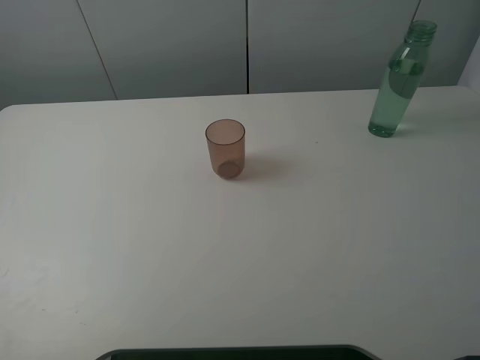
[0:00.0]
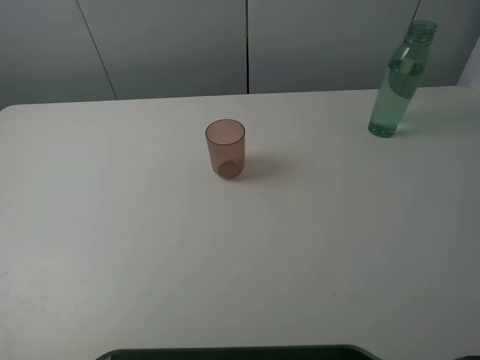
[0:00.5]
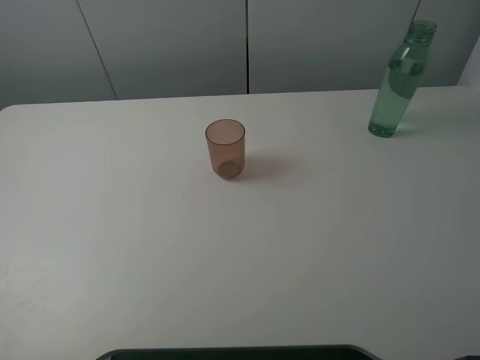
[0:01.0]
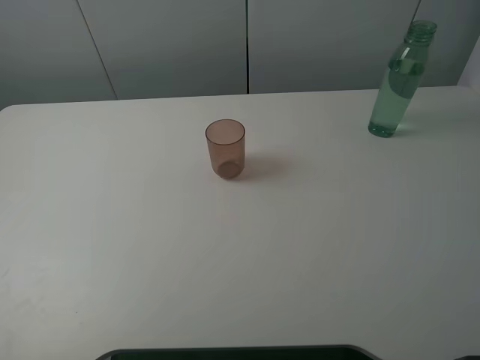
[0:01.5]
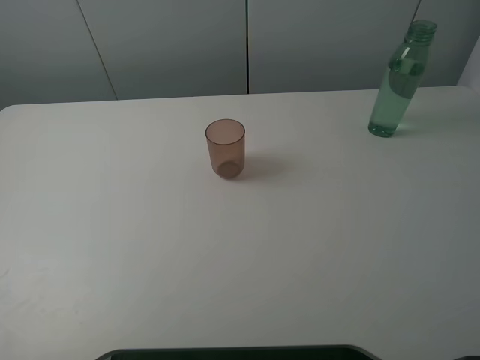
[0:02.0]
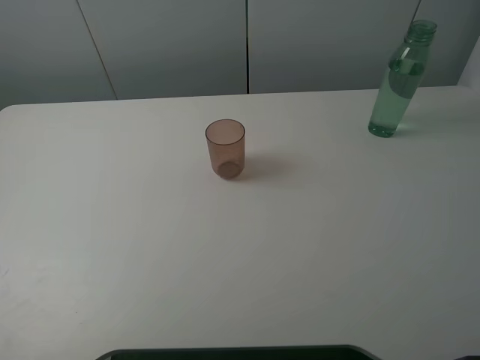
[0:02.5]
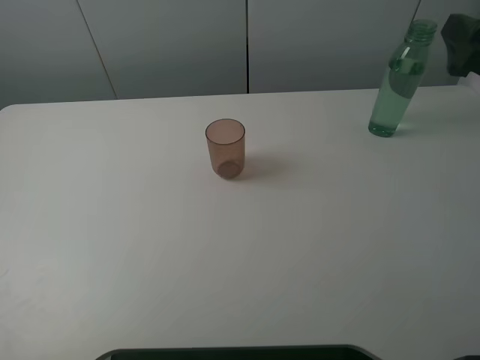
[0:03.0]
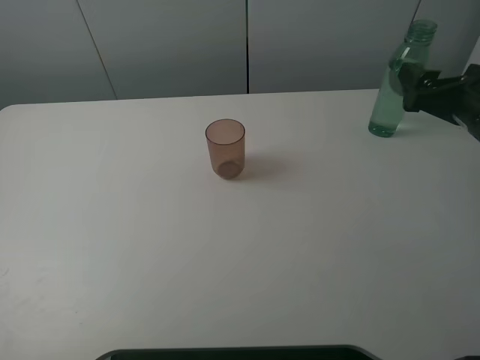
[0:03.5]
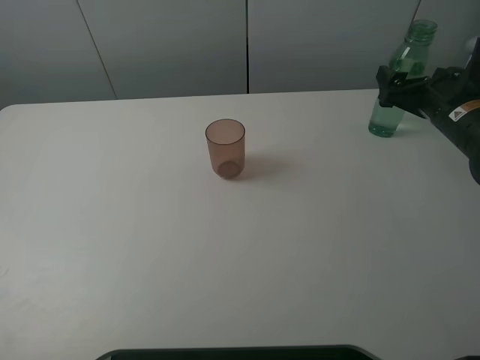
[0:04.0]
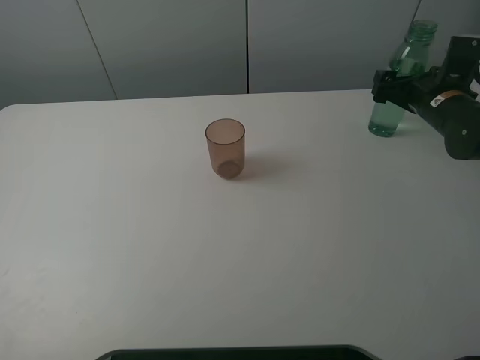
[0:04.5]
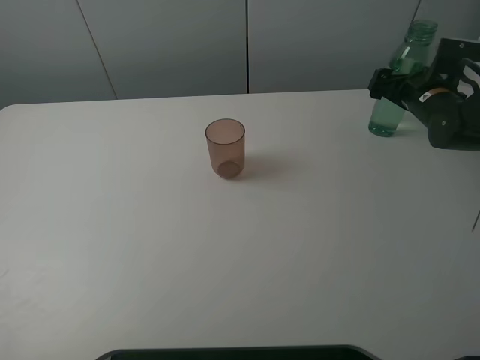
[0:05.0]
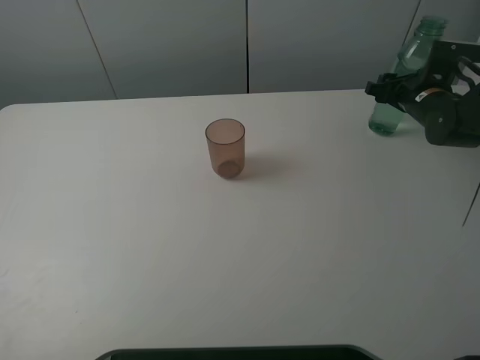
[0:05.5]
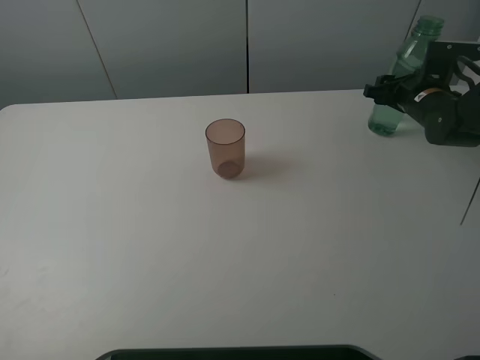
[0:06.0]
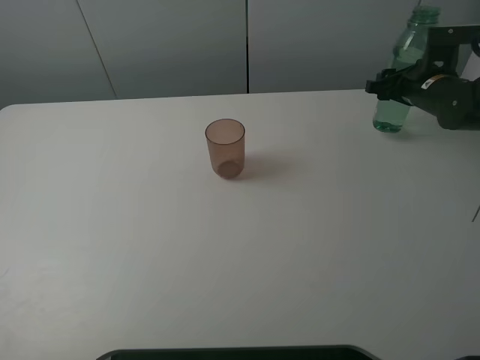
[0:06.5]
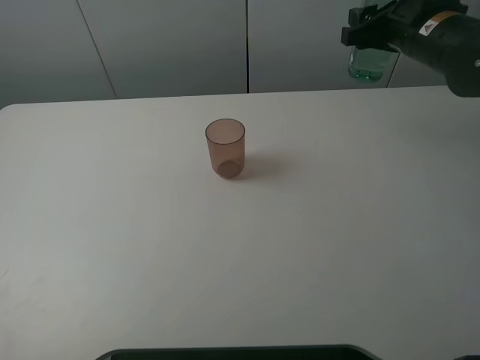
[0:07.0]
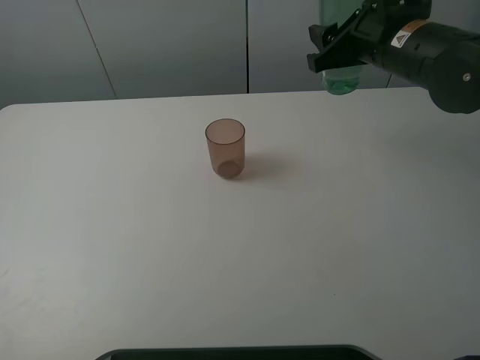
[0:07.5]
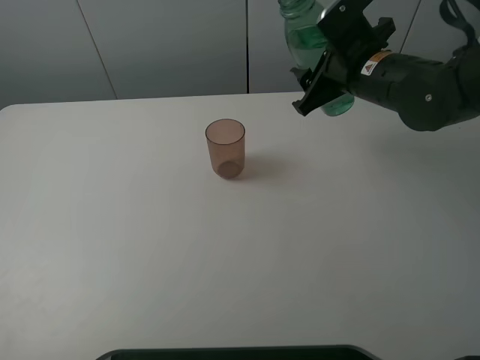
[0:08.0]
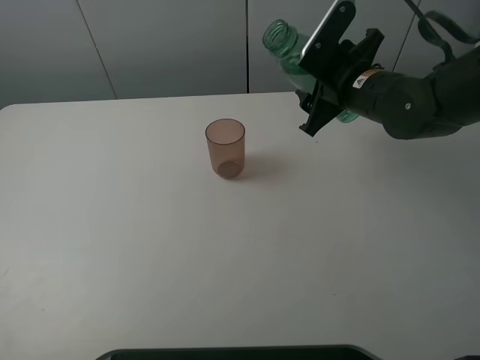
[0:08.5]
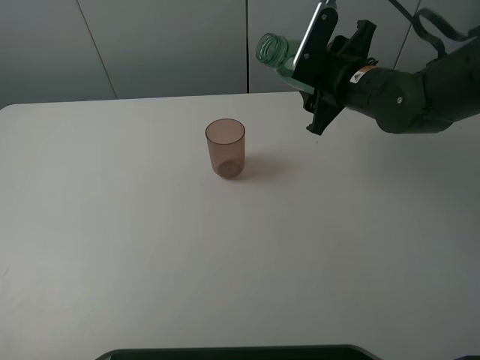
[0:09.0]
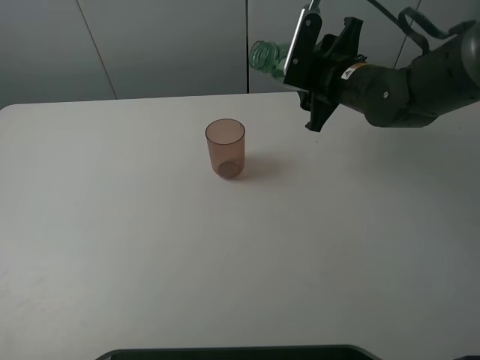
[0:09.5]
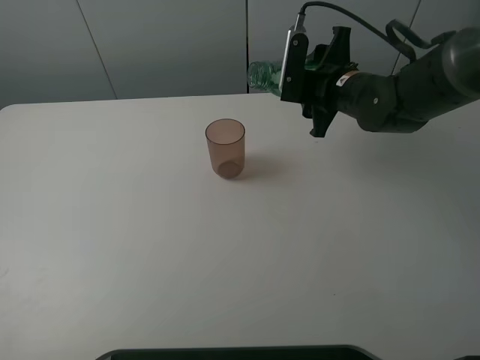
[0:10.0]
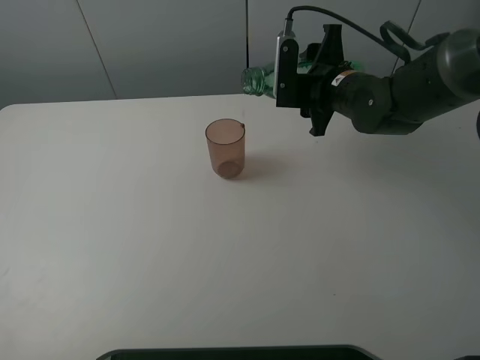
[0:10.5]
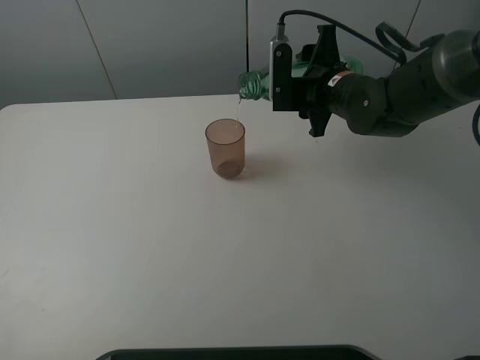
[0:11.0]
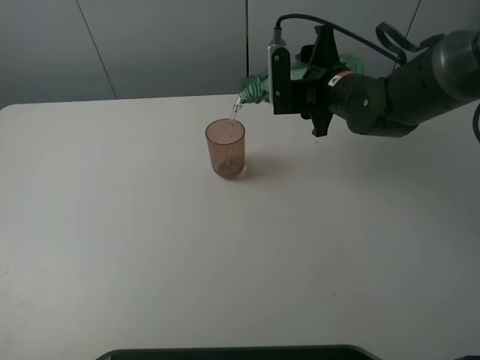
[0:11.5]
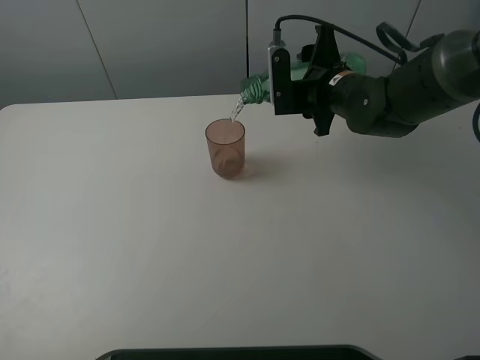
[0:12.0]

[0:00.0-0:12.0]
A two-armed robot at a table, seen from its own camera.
Task of the whole recording: pick up the bottle filled with water and pour it into the pink cup.
Step, 0:00.0 to 0:06.0: Grasp the green bottle with the right gripper.
0:02.0 to 0:04.0: The right gripper shifts about 35 cm forward and downward.
0:04.0 to 0:06.0: The right gripper moves forward, approximately 10 cm, and closes its fingers.
0:06.0 to 0:08.0: The right gripper travels to the left, upward and backward by some 20 cm.
0:08.0 to 0:10.0: The right gripper changes place by approximately 5 cm.
0:10.0 to 0:12.0: The grippers make only small movements.

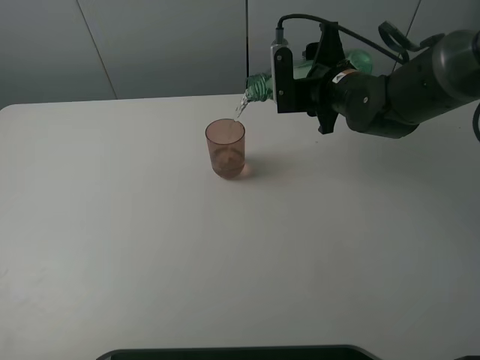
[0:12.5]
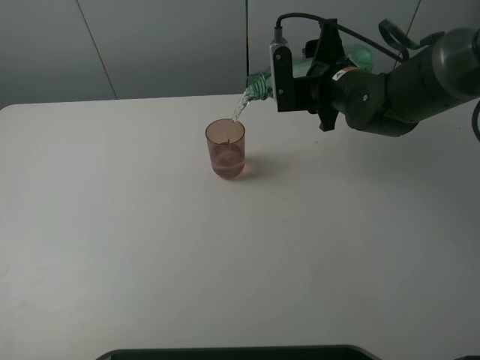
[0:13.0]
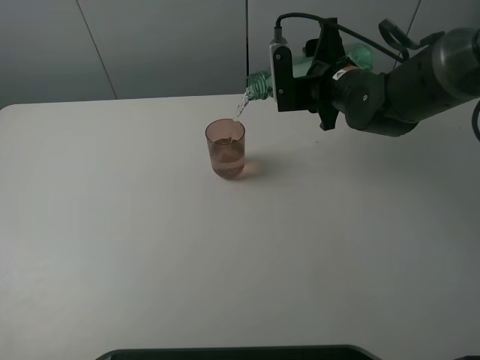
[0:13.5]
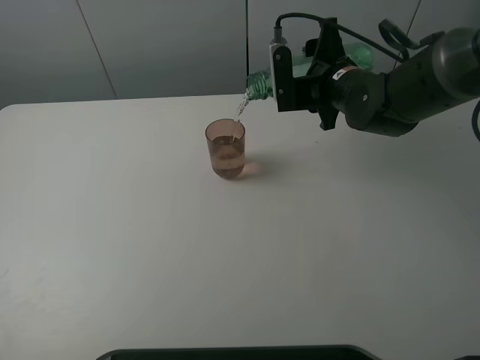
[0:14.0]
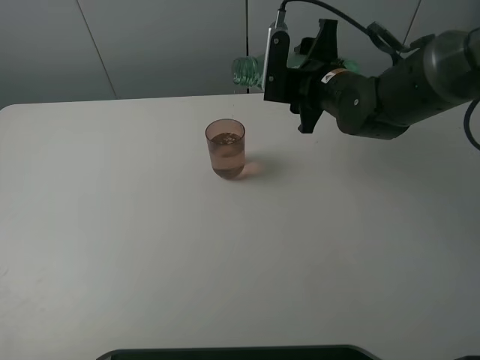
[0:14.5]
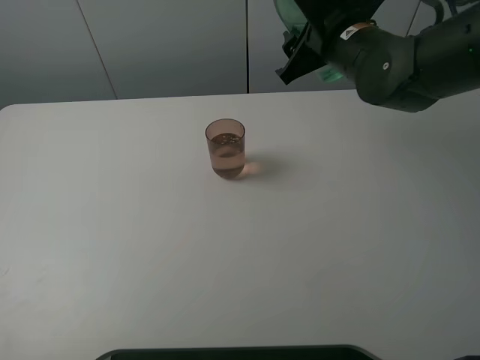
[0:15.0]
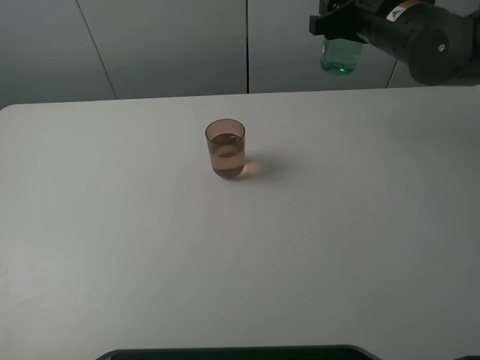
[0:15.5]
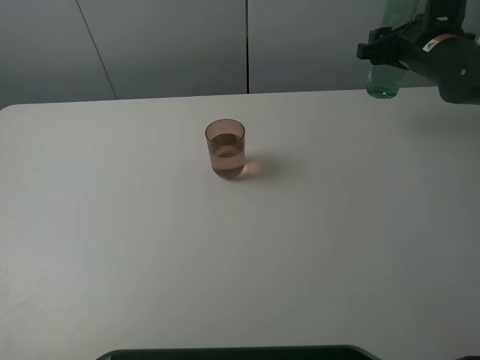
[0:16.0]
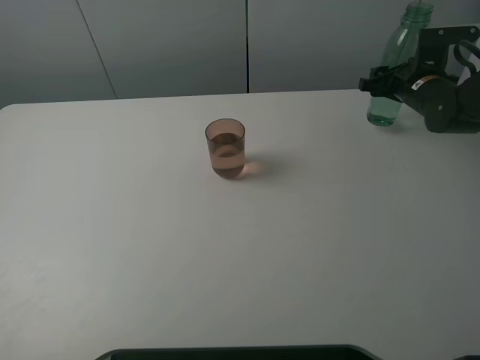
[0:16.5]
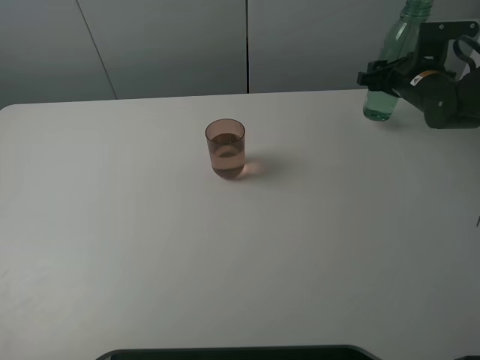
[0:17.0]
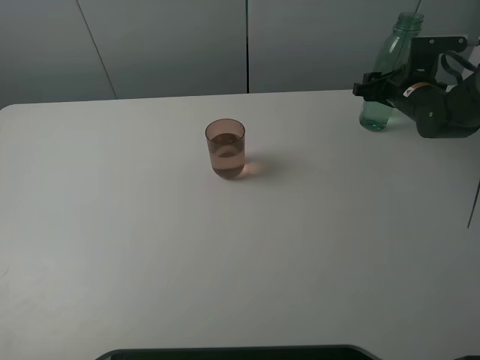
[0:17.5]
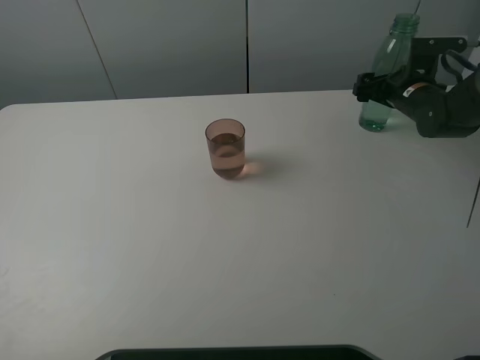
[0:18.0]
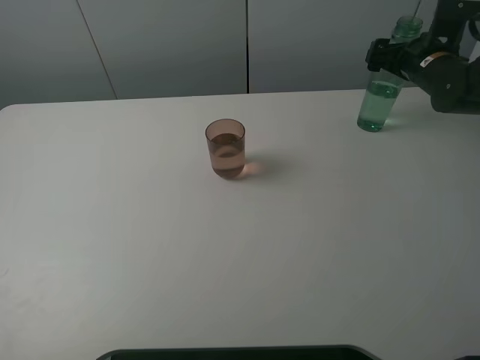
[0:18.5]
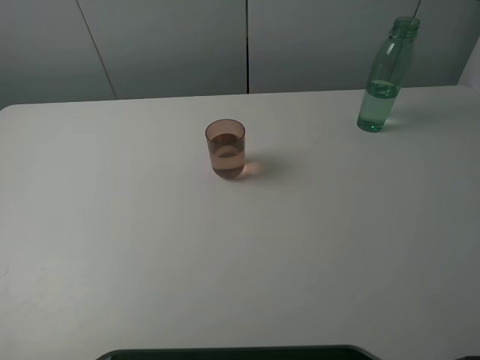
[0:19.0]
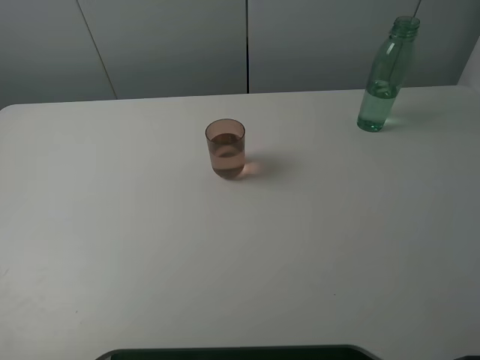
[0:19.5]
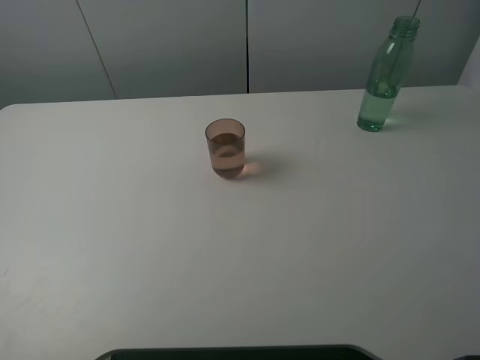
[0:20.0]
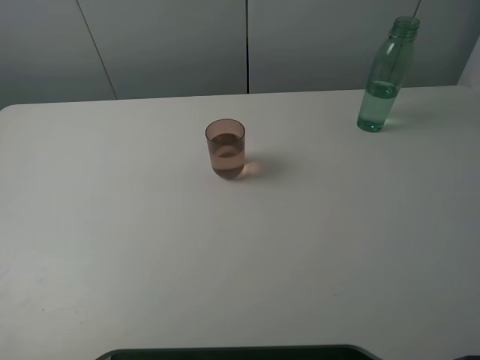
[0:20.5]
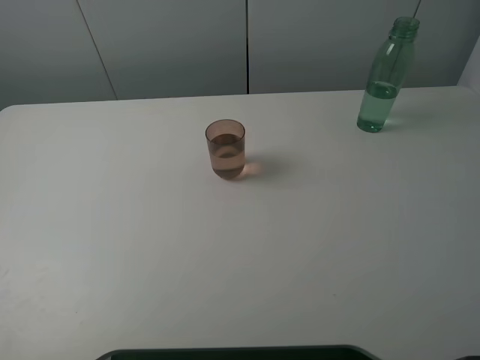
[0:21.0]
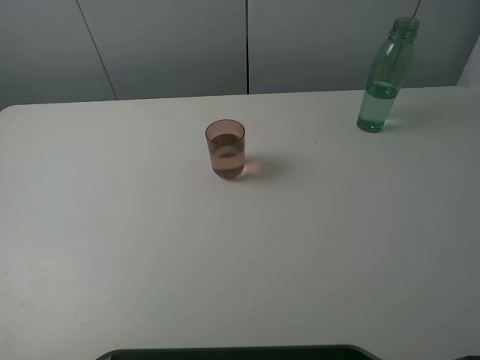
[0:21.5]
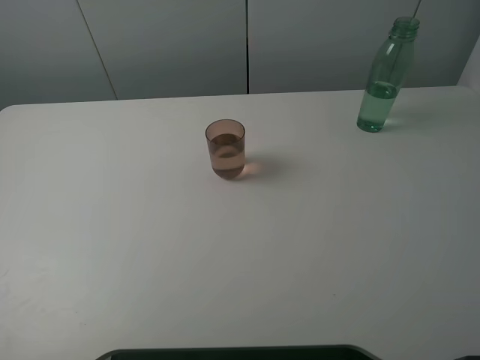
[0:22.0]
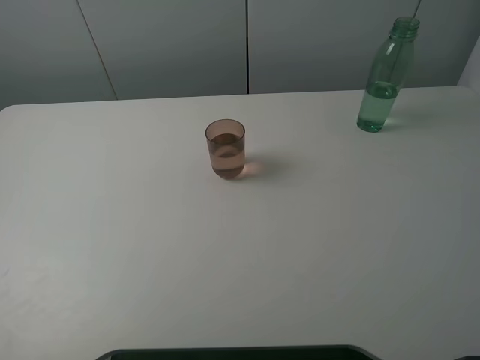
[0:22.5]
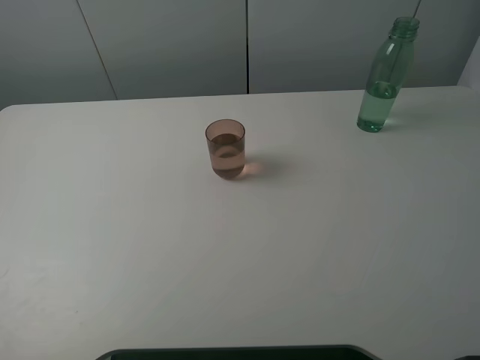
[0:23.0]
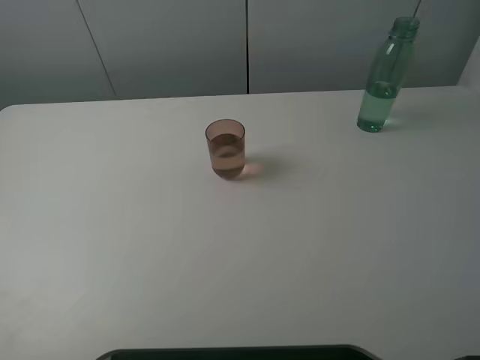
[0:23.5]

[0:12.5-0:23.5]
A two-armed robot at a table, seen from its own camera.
Task of the whole recording: pick up the bottle filled with water and pour it into the pink cup.
Step, 0:12.5 to 0:14.5: Pour water from green bottle to pink cup with the right gripper.
Step, 0:15.0 to 0:18.5: Place the green bottle with the right gripper.
0:12.5 to 0:14.5: There are only small adjustments of the grippers.
0:14.5 to 0:16.0: The right gripper goes roughly 15 cm to the right.
0:16.0 to 0:18.0: The right gripper goes roughly 10 cm downward, and opens its fingers.
0:18.0 to 0:20.0: The right gripper shifts approximately 35 cm upward and backward.
0:21.5 to 0:23.5: The two grippers keep their place.
